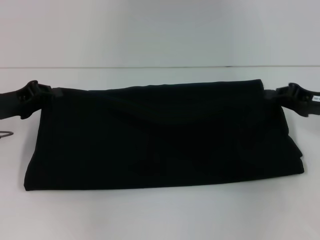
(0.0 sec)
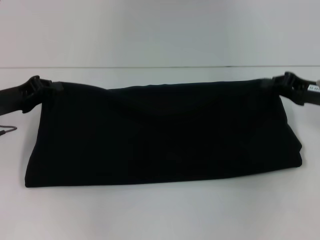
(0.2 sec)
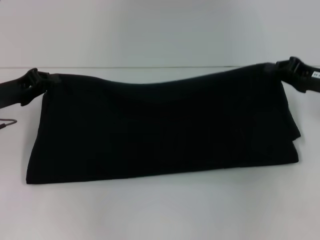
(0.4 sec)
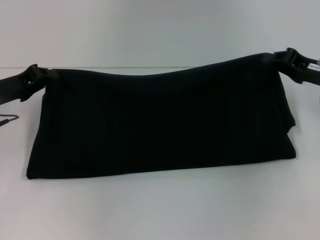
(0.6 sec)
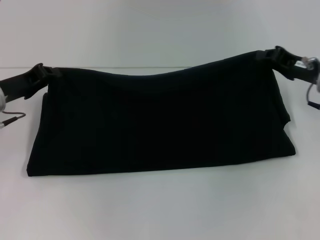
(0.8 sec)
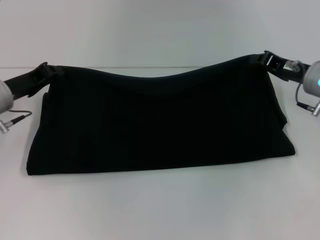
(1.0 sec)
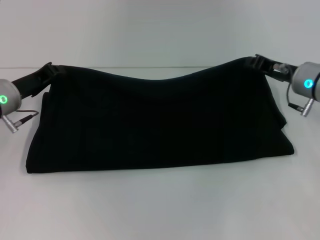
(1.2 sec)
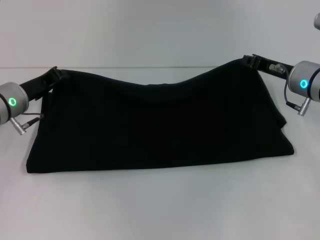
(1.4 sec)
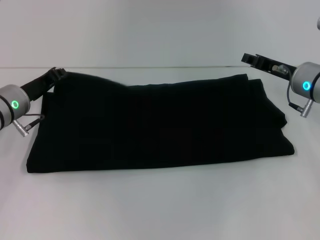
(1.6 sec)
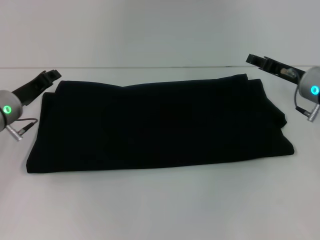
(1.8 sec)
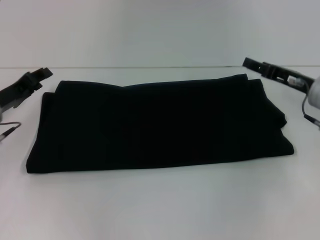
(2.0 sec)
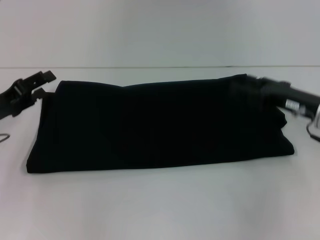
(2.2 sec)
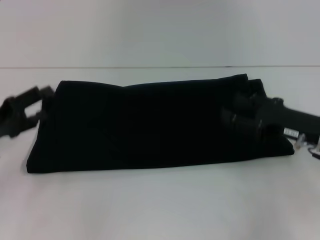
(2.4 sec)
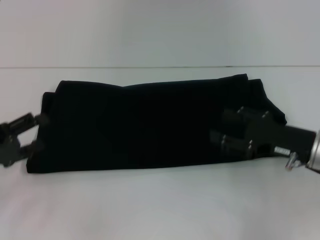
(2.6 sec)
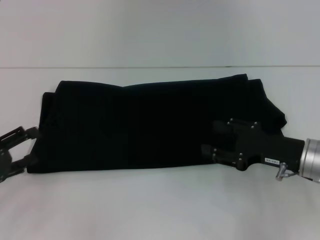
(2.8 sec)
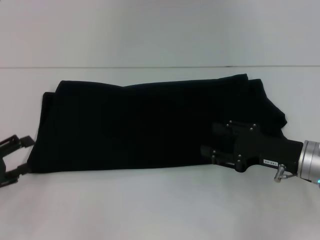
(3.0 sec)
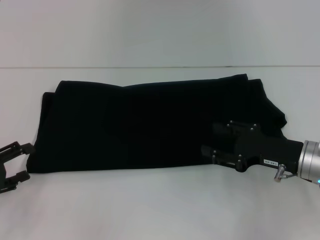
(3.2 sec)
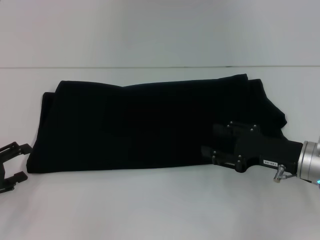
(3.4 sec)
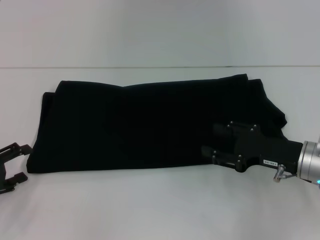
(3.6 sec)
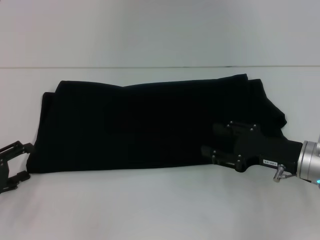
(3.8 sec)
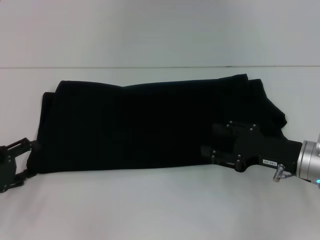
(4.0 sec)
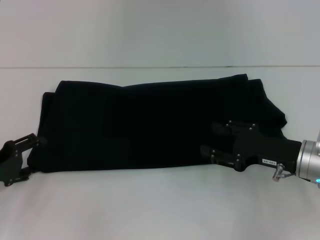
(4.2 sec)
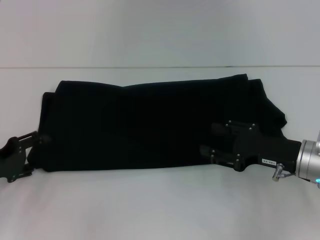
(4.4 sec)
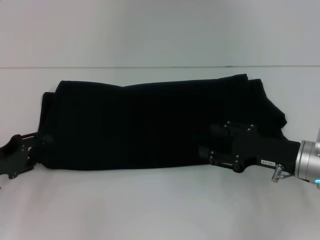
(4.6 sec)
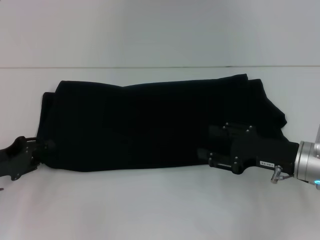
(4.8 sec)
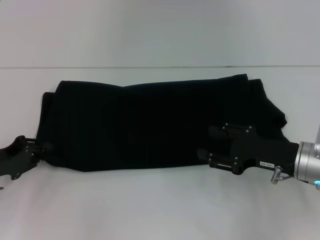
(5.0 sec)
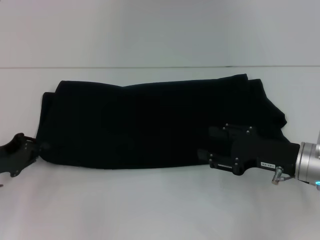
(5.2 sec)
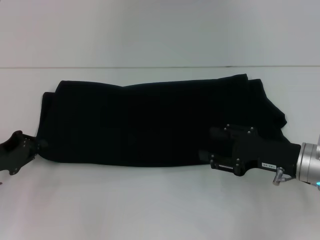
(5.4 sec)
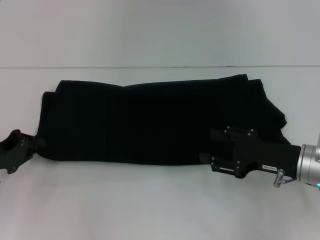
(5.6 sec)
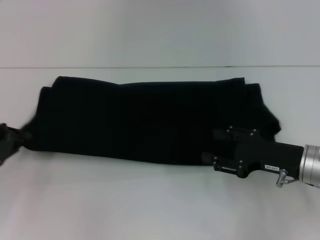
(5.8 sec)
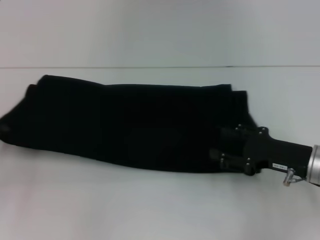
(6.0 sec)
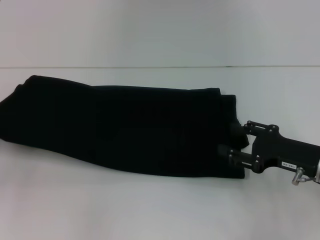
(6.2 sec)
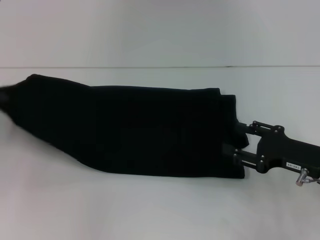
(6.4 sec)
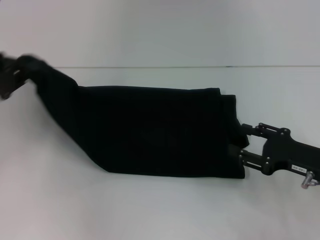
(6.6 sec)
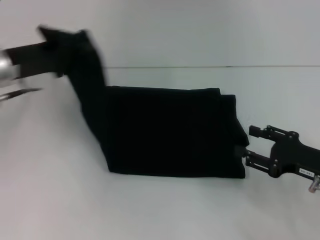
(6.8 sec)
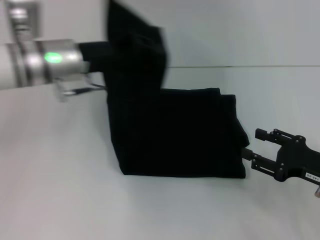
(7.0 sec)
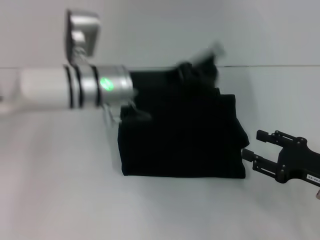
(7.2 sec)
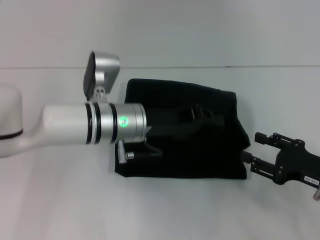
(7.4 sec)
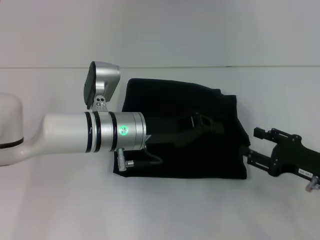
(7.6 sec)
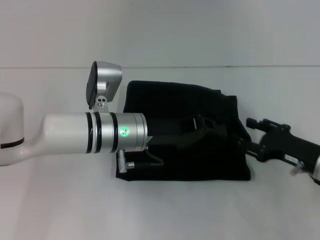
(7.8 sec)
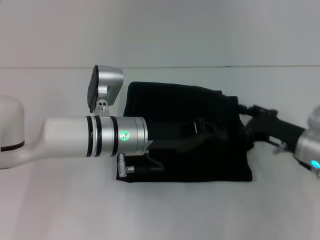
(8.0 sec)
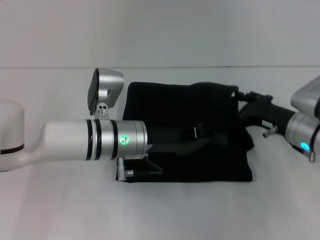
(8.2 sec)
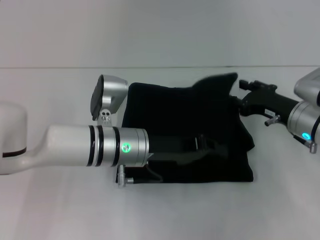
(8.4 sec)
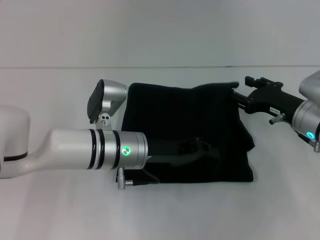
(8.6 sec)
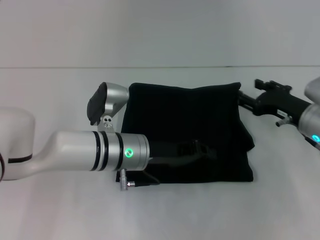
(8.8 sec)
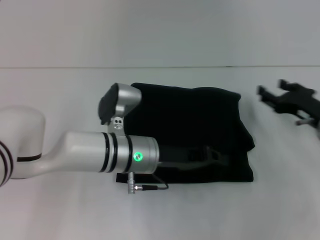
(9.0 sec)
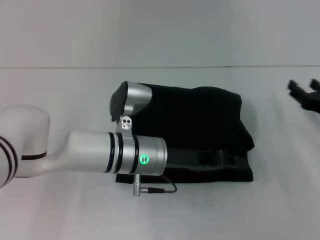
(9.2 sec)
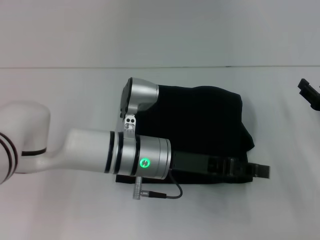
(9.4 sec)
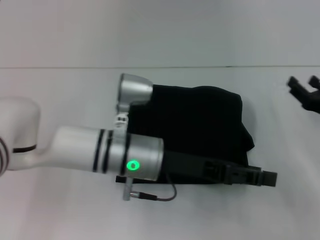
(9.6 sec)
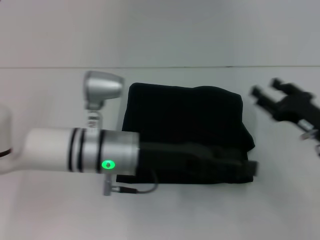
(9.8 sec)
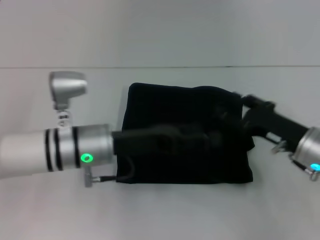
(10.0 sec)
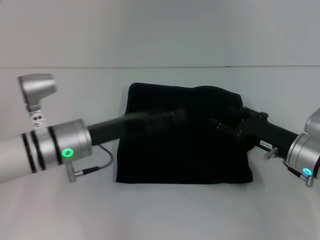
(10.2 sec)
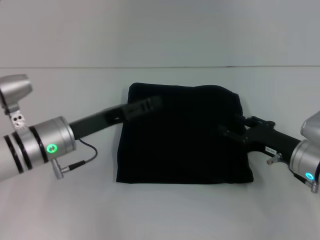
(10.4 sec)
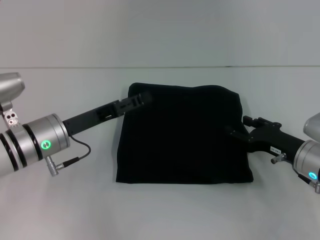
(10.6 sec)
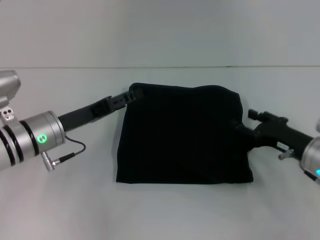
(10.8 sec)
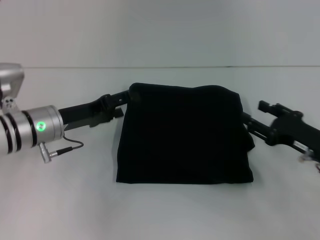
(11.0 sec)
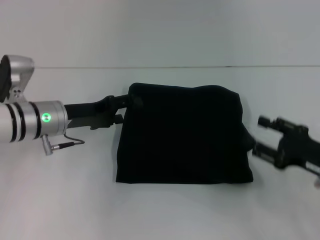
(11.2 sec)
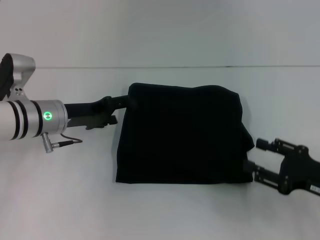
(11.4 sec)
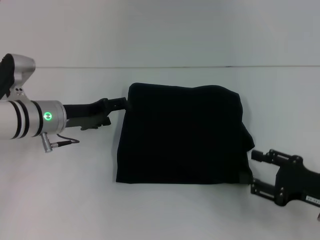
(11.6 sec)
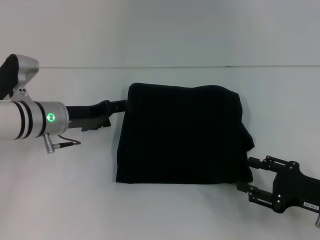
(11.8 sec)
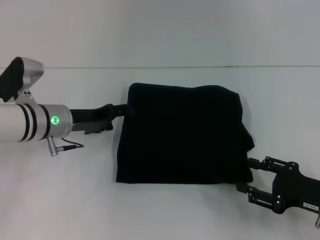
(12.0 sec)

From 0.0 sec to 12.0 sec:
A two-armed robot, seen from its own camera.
Step, from 0.0 sec to 1.6 sec: Fold the clothes with your right hand.
Step, from 0.0 sec to 9.6 sec: Fold the clothes with your left hand.
From 0.0 sec to 1.6 sec: The right gripper shifts roughly 10 cm to the left and forward, while the left gripper goes about 5 cm to the right.
From 1.6 sec to 3.0 sec: The right gripper is displaced backward by roughly 10 cm, and opens its fingers. The left gripper is displaced backward and to the left by approximately 20 cm, and opens.
From 3.0 sec to 4.4 sec: The grippers stay close to where they were, moving slightly.
From 4.4 sec to 6.0 sec: The left gripper ends up roughly 5 cm from where it was, and closes its fingers.
From 6.0 sec to 7.6 sec: The left gripper goes roughly 30 cm to the right.
From 7.6 sec to 9.0 sec: The right gripper is displaced forward by approximately 10 cm.
From 9.0 sec to 10.4 sec: The right gripper shifts by about 5 cm. Meanwhile the left gripper heads to the left, covering roughly 10 cm, and opens.
From 10.4 sec to 12.0 sec: The right gripper moves backward, about 10 cm. The left gripper shifts some 5 cm forward.

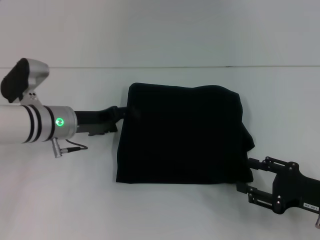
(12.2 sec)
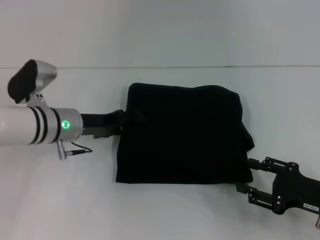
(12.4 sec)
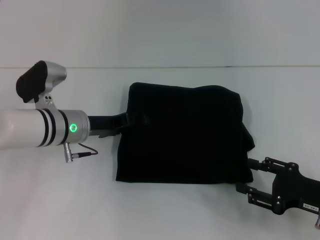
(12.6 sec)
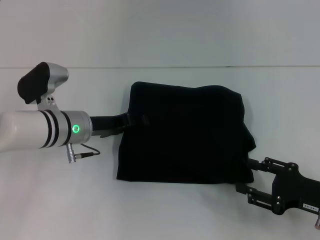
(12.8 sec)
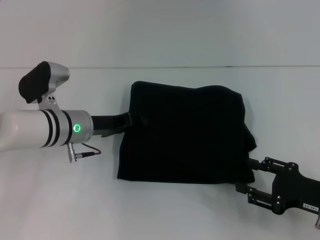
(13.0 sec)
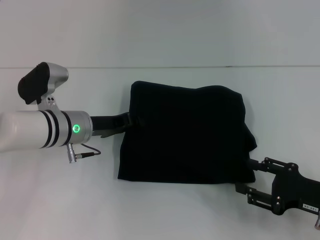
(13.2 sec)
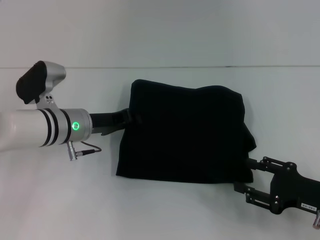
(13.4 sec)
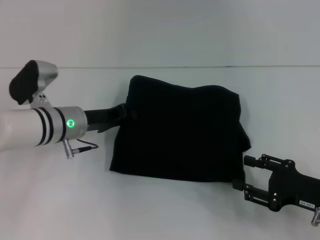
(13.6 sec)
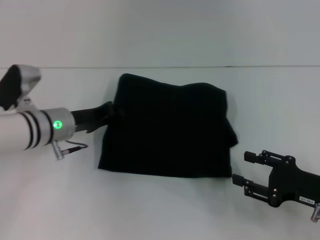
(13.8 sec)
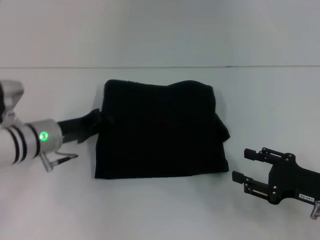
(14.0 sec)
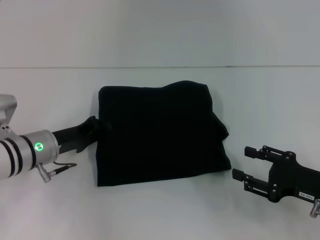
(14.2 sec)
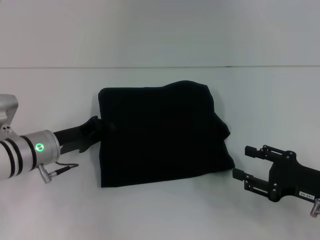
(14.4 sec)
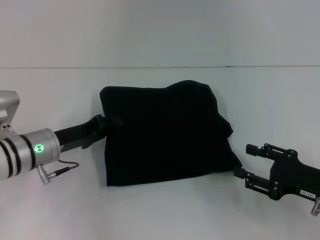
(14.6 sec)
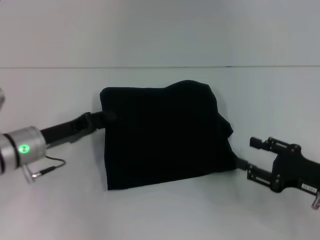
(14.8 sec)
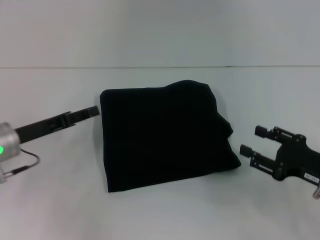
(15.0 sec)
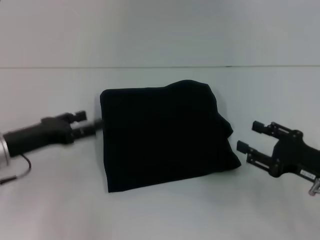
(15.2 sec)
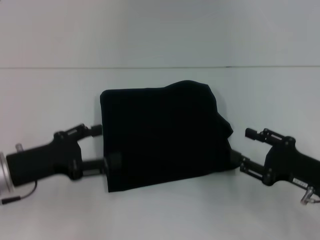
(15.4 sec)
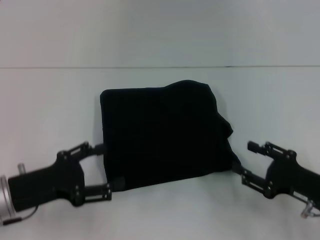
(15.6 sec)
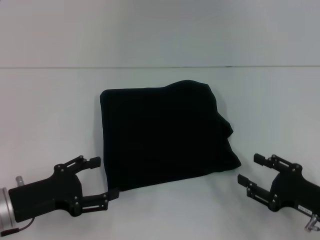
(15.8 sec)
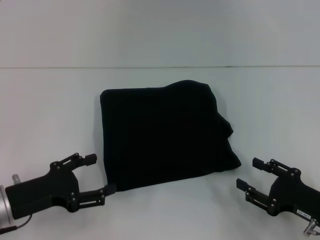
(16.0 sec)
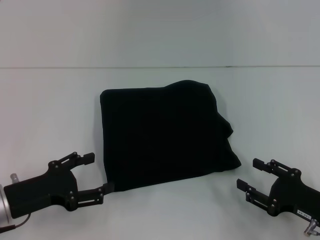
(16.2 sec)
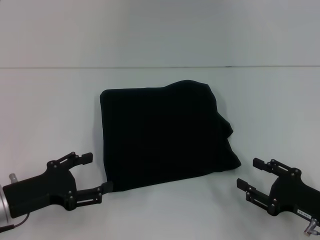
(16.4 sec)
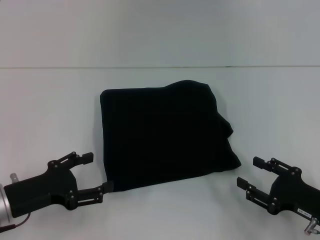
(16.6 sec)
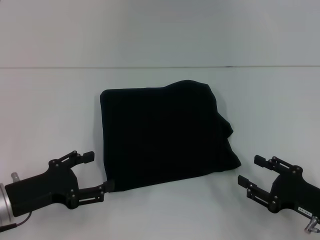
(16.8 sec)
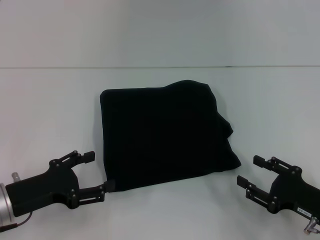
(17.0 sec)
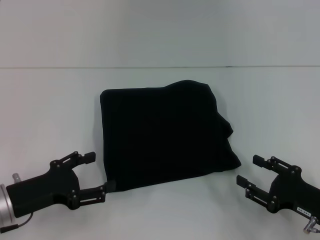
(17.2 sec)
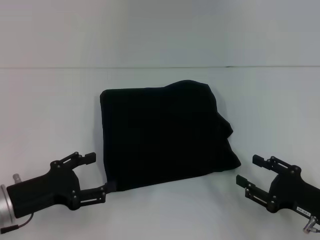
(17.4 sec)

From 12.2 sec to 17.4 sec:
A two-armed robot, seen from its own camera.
From 12.2 sec to 14.0 sec: The left gripper closes its fingers.
From 14.0 sec to 15.6 sec: The left gripper heads backward, covering about 10 cm, and opens its fingers.
From 15.6 sec to 17.4 sec: There are only small adjustments of the grippers.
